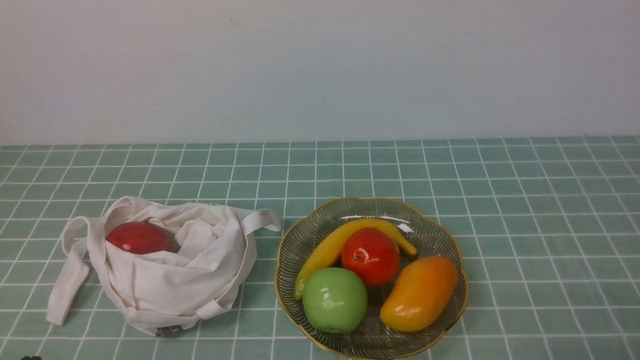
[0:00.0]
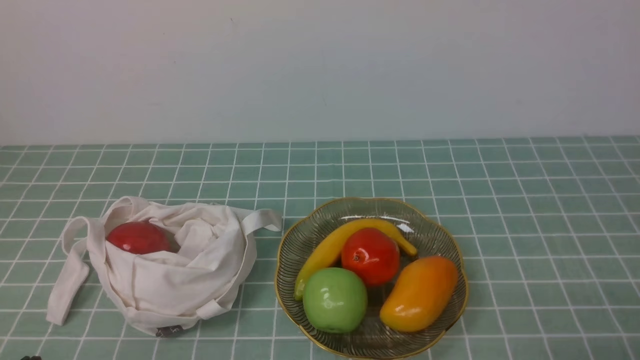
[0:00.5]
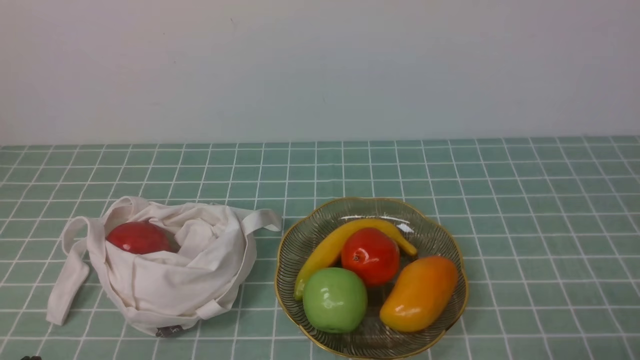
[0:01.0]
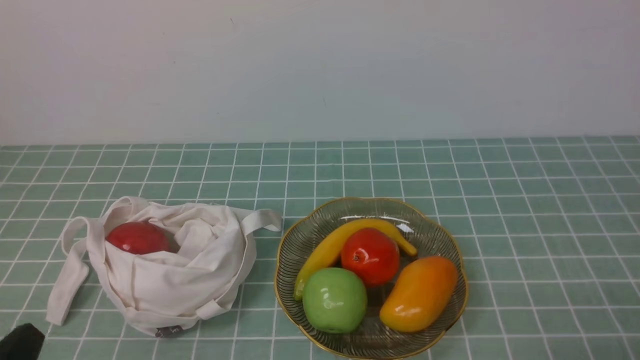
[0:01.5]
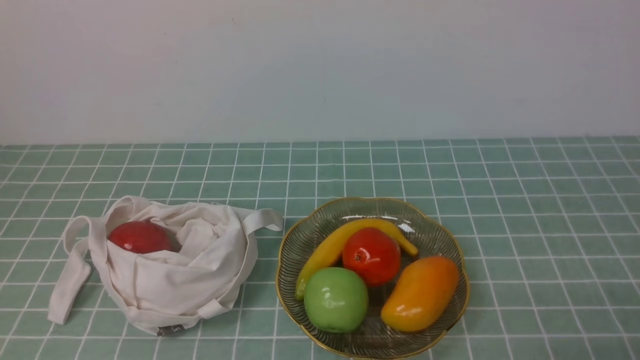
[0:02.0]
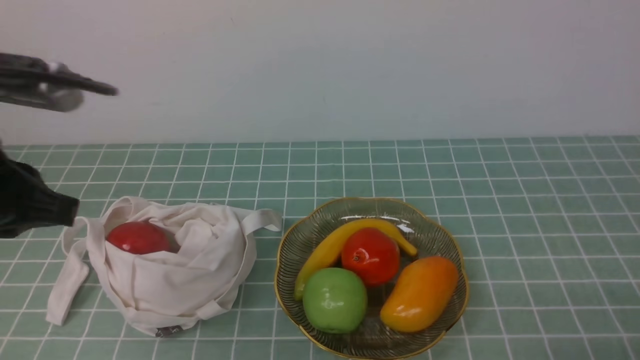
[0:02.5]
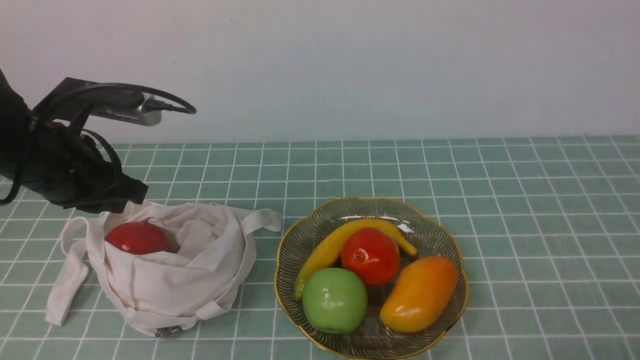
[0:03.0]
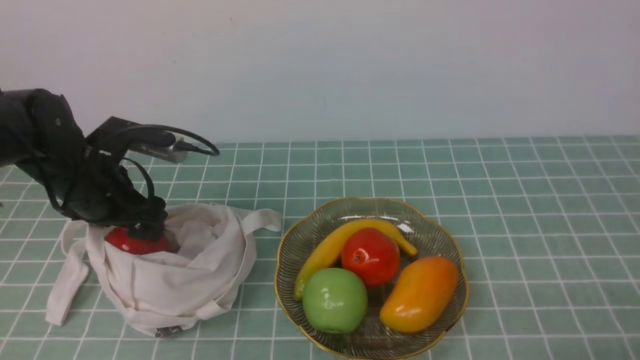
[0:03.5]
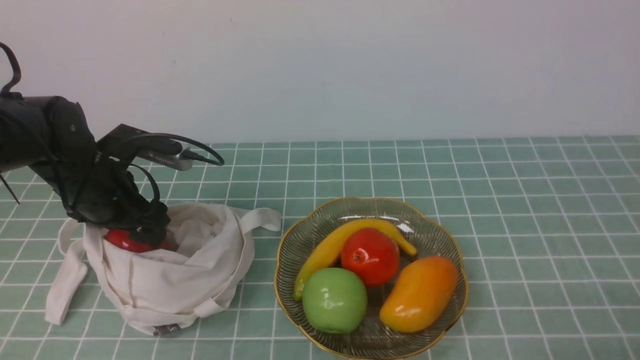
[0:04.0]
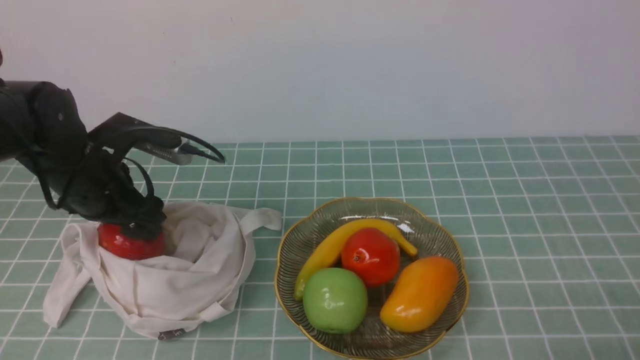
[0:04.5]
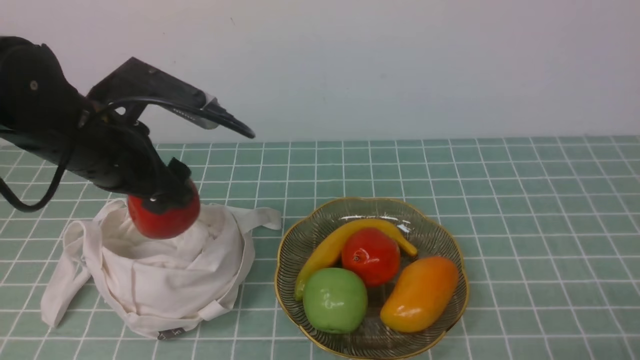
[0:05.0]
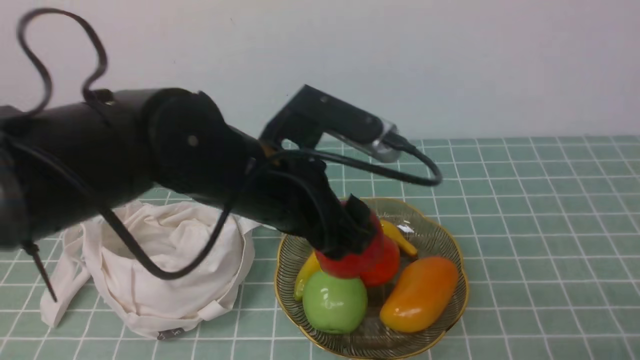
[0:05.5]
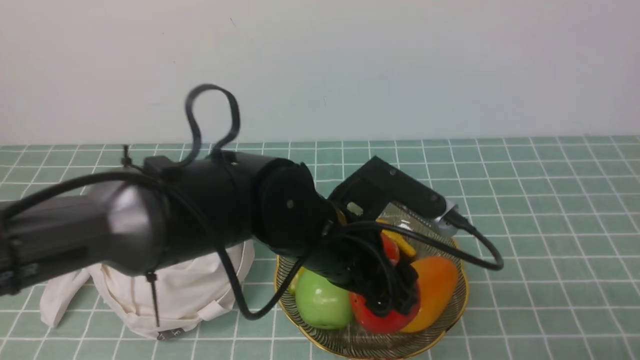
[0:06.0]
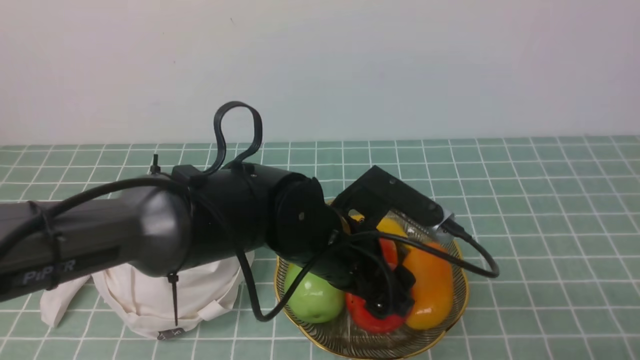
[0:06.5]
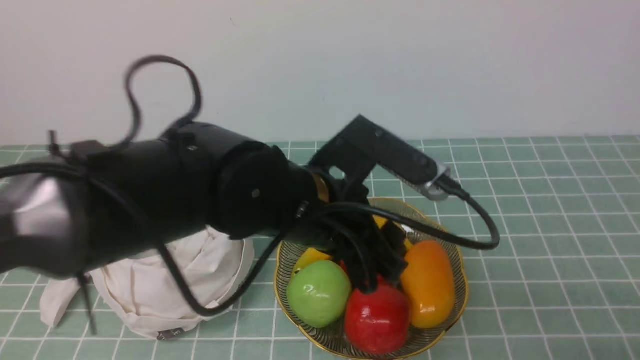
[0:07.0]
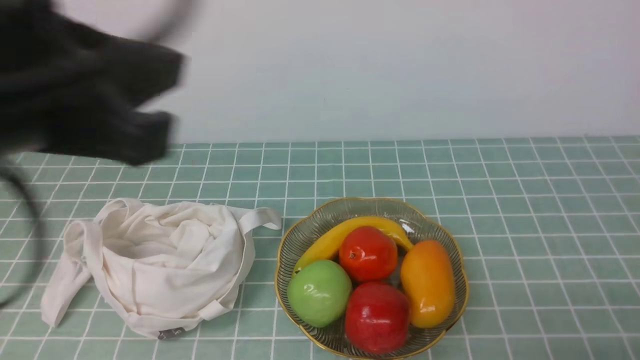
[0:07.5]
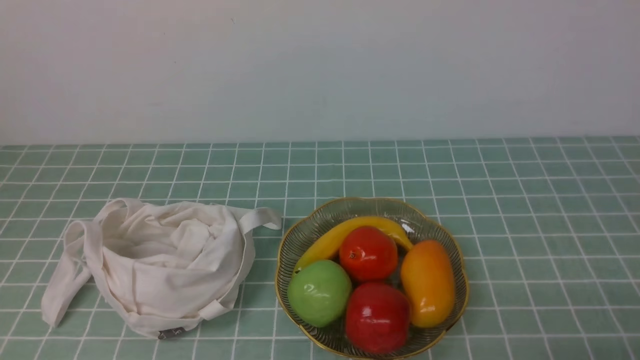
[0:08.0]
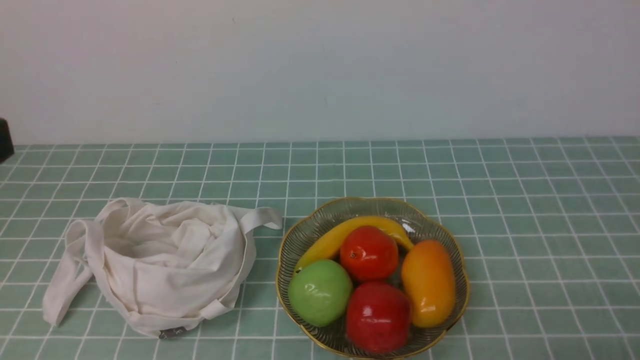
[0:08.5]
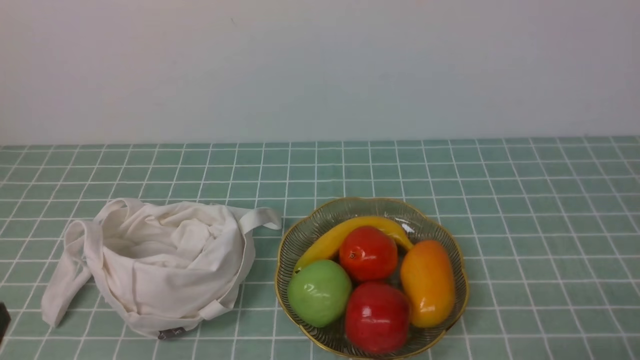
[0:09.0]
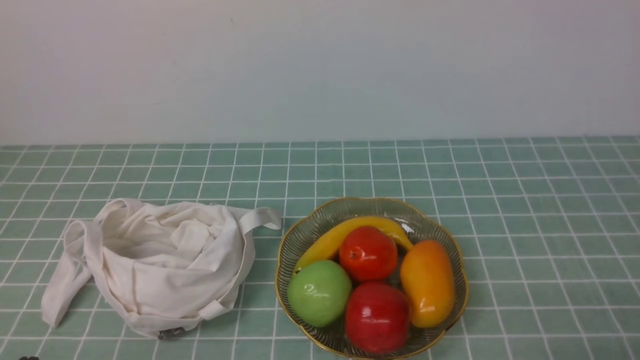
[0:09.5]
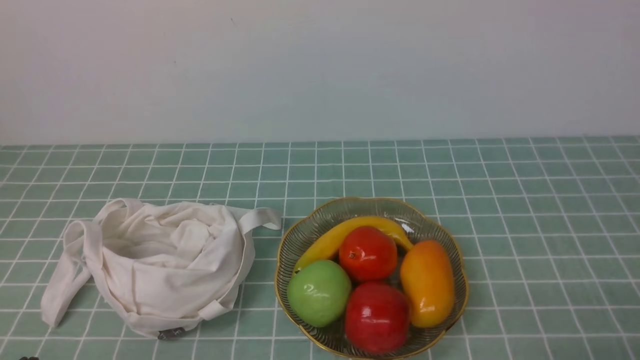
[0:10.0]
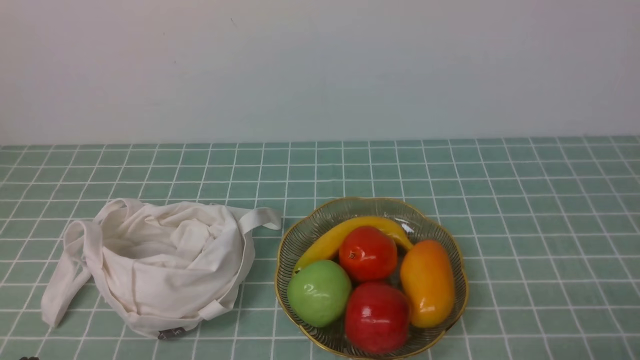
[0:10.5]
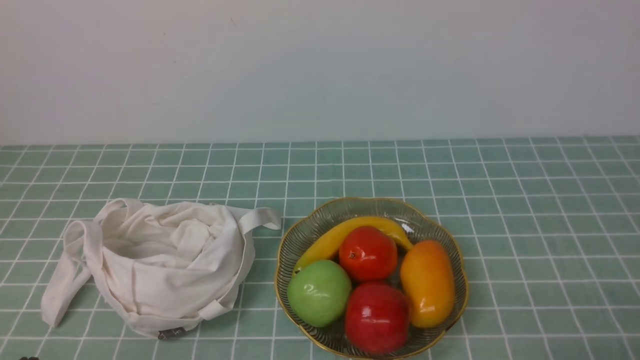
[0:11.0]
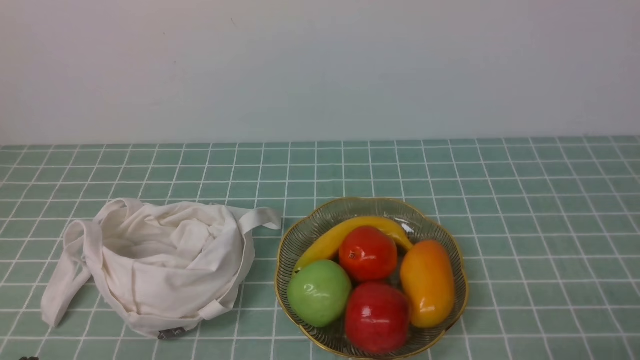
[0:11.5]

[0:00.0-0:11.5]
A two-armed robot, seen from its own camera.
Step, 0:00.0 to 0:04.0: use the left arm to grab an apple from the bag.
Step, 0:04.5 to 0:06.5: use the left arm to put the apple into the empty plate on the right.
0:02.0 to 0:04.0: The left gripper shifts approximately 35 cm forward and downward, and opens up.
0:04.0 to 0:06.0: The left gripper goes approximately 25 cm to the right and backward.
0:06.0 to 0:07.5: The left gripper travels upward, to the left and backward by about 25 cm, and closes its fingers.
0:07.5 to 0:09.5: The left gripper goes roughly 30 cm downward, to the left and backward.
0:09.5 to 0:11.5: The two grippers keep their place.

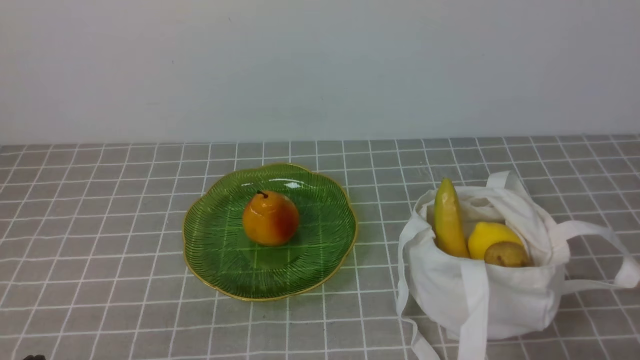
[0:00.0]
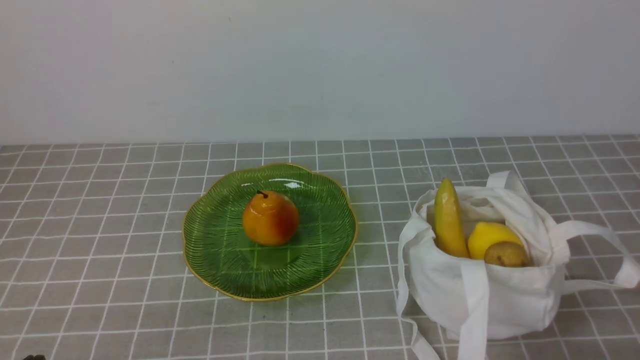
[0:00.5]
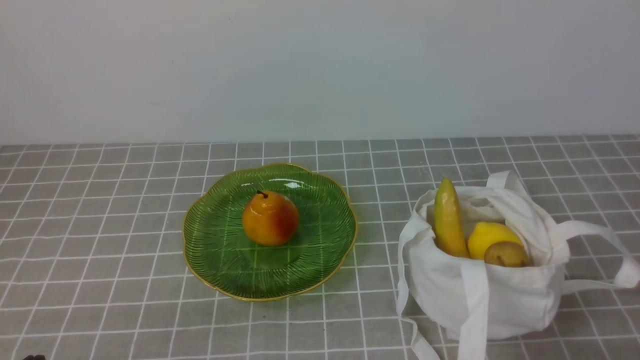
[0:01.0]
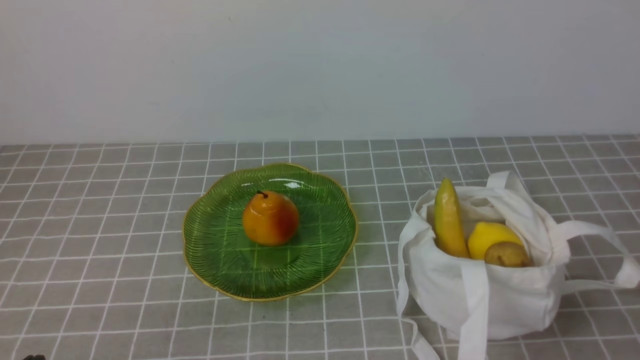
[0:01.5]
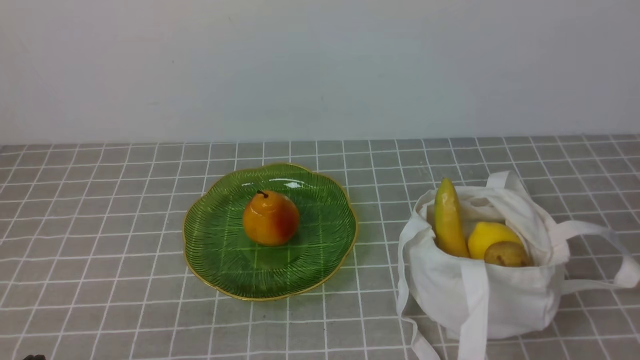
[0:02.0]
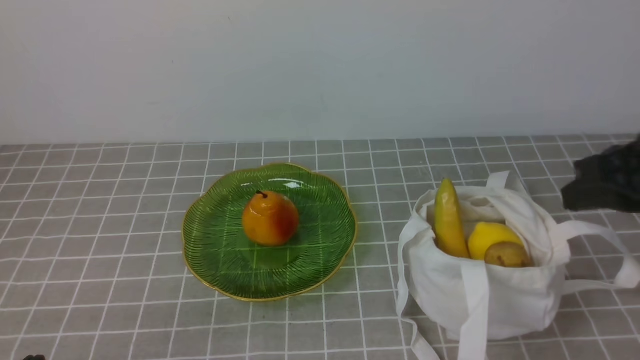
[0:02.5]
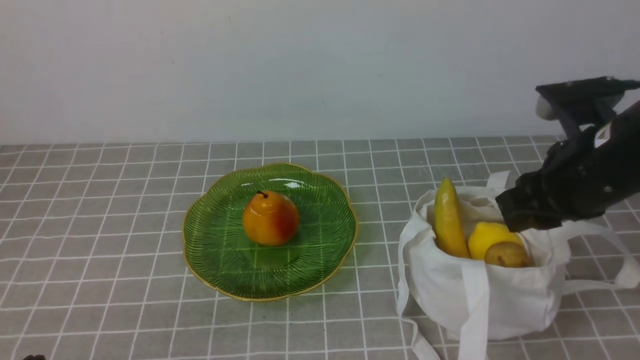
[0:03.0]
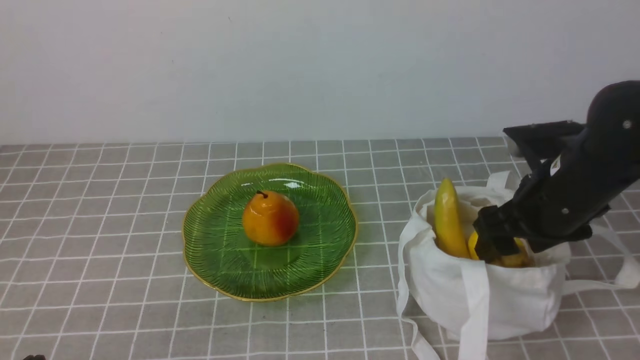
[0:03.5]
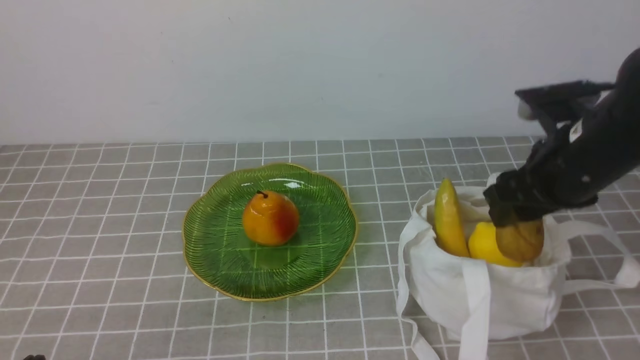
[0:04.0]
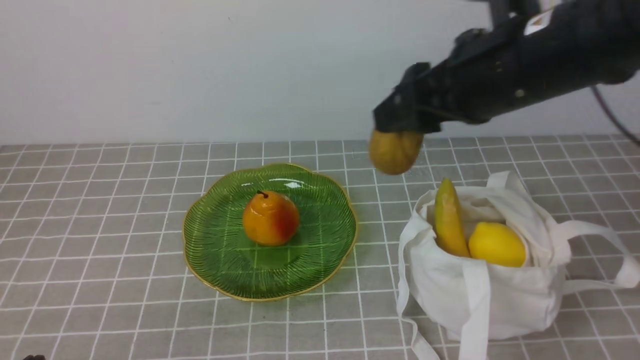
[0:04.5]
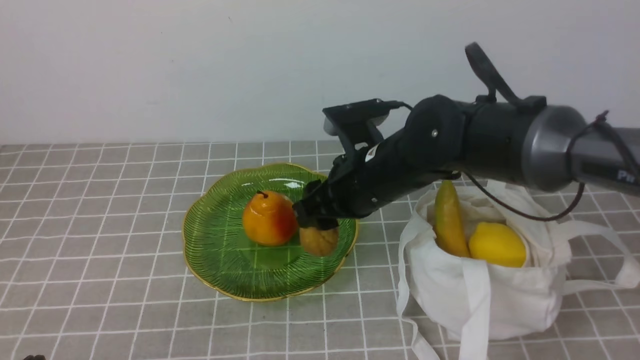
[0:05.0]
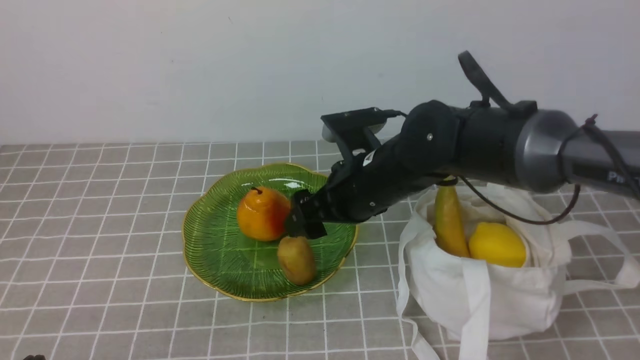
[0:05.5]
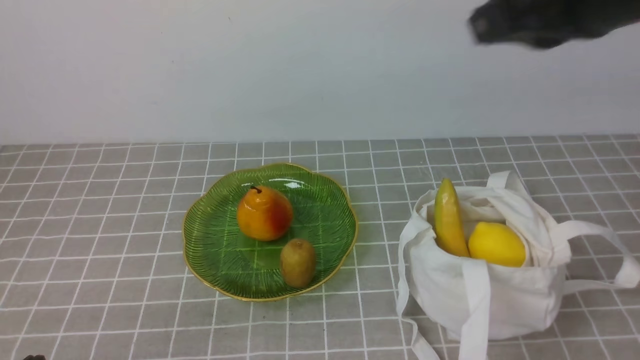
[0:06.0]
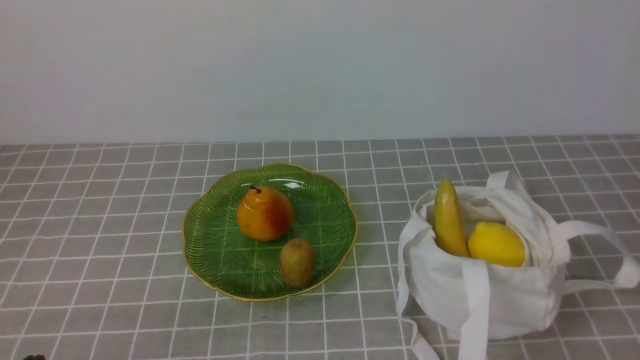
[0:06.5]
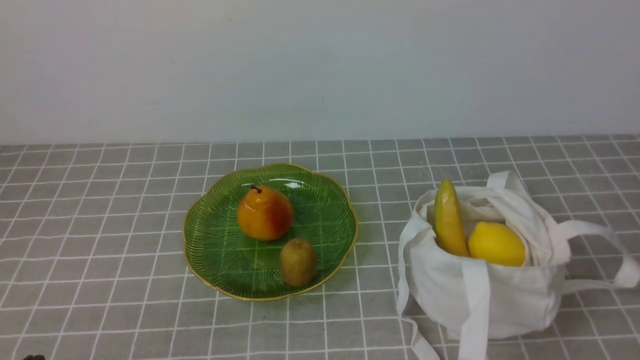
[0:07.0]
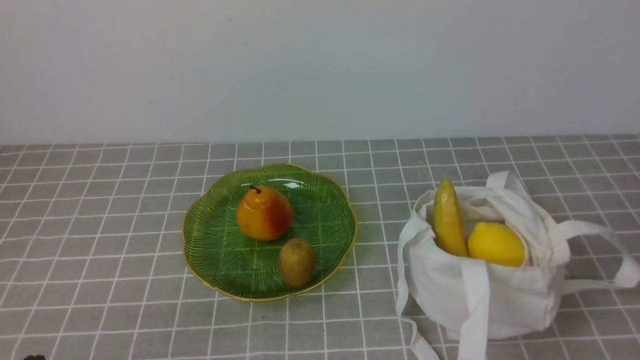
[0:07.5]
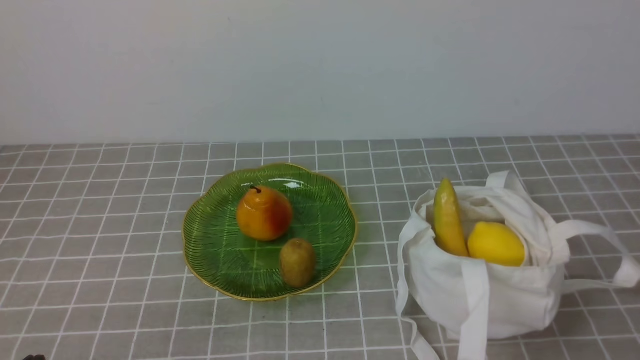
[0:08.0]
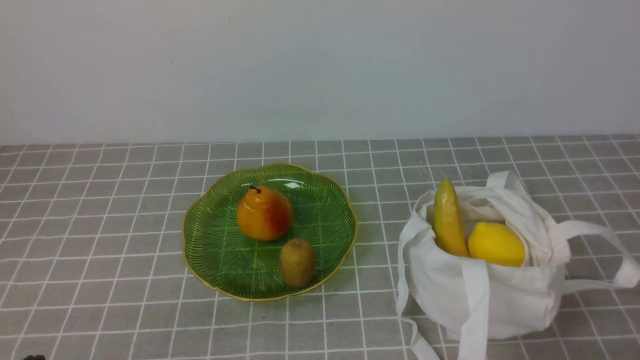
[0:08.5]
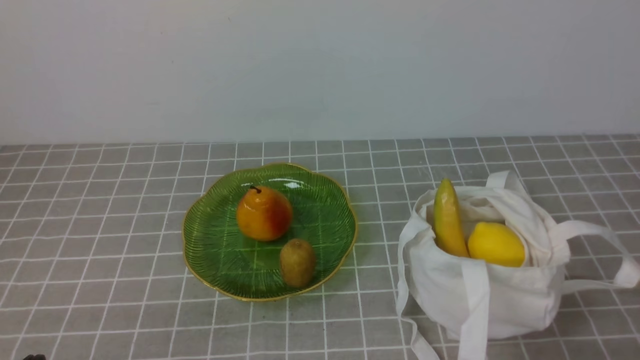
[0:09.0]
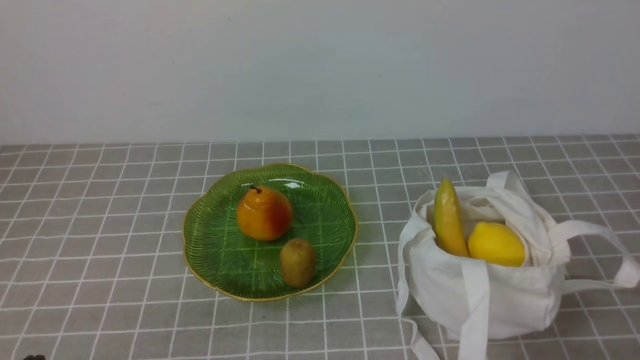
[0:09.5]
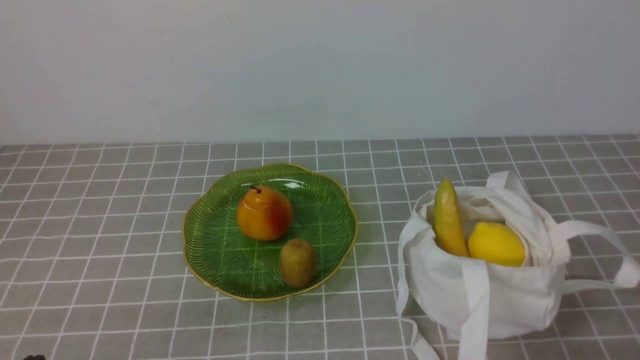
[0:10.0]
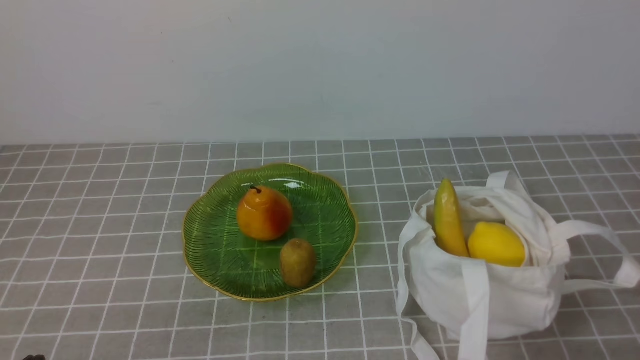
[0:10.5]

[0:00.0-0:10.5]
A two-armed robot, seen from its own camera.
Step, 0:00.0 to 0:03.5: use the right arm to grab a kiwi from the bag.
Step, 0:04.5 to 0:05.5: use the right arm to put the kiwi into the empty plate on the left.
0:02.0 to 0:04.0: The right gripper is displaced forward by some 25 cm, and opens its fingers.
0:04.0 to 0:06.5: The right gripper heads backward and upward, covering approximately 35 cm, and closes up.
0:08.5 to 0:10.5: Both grippers stay put.
